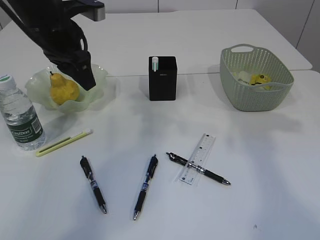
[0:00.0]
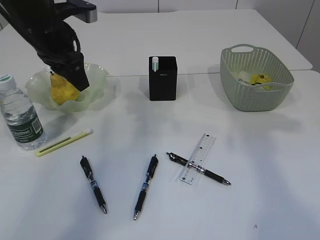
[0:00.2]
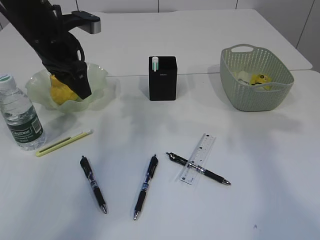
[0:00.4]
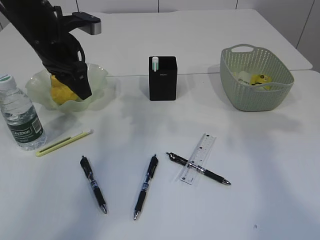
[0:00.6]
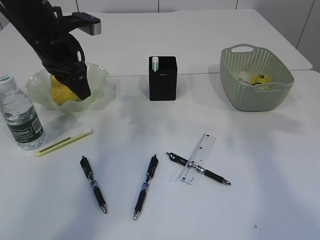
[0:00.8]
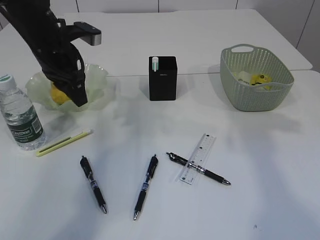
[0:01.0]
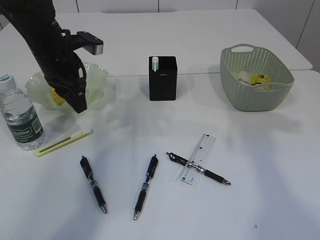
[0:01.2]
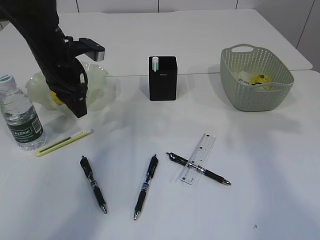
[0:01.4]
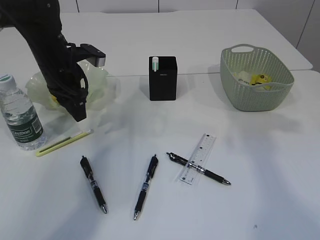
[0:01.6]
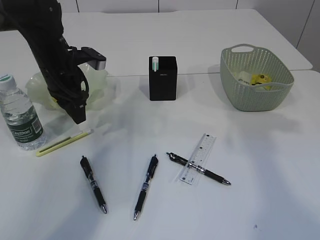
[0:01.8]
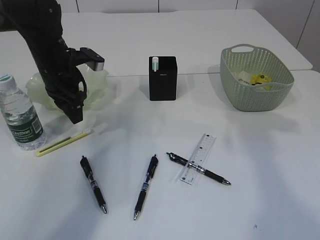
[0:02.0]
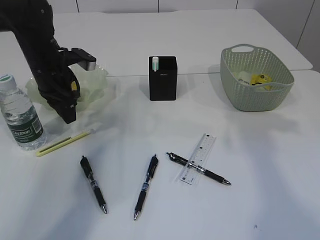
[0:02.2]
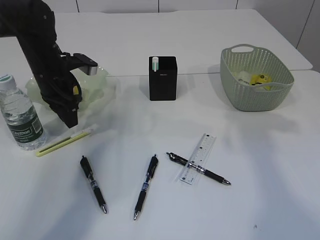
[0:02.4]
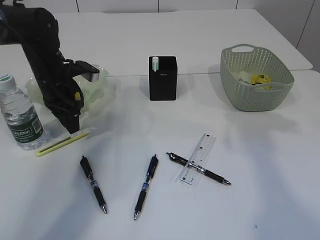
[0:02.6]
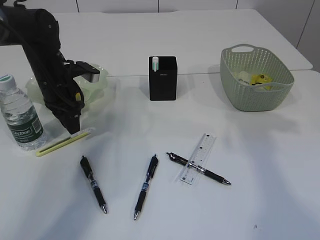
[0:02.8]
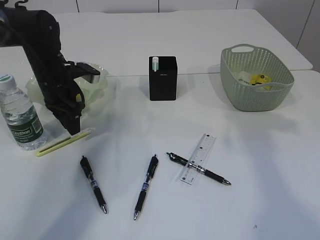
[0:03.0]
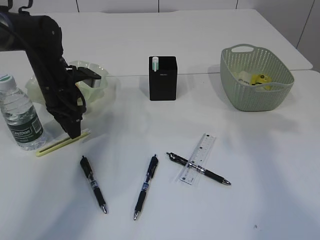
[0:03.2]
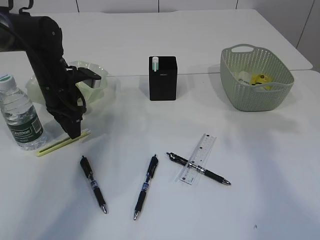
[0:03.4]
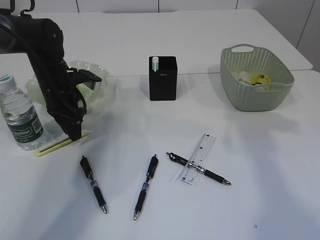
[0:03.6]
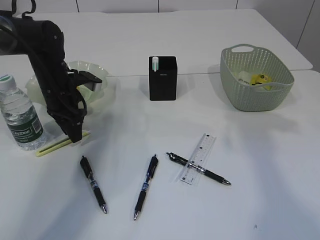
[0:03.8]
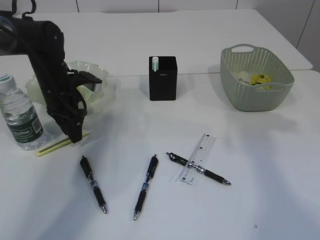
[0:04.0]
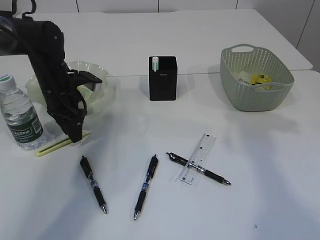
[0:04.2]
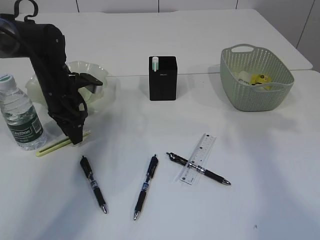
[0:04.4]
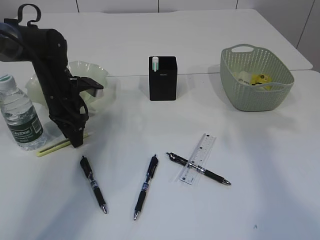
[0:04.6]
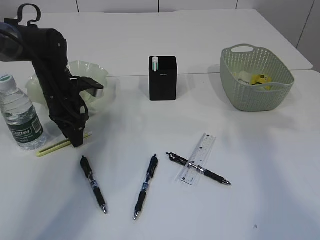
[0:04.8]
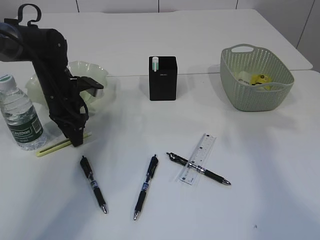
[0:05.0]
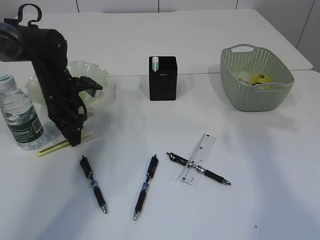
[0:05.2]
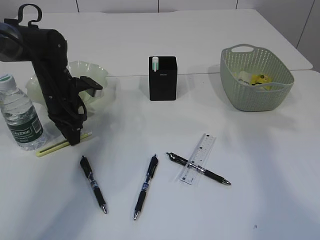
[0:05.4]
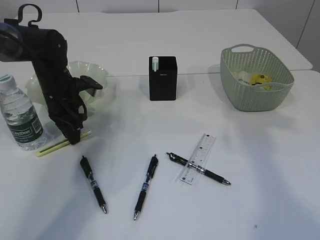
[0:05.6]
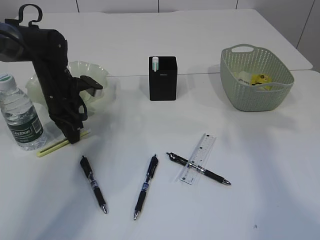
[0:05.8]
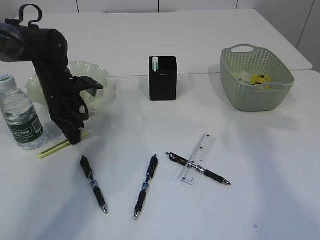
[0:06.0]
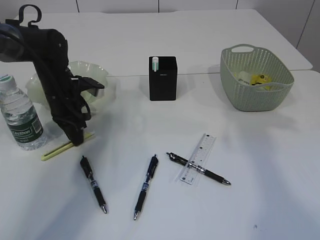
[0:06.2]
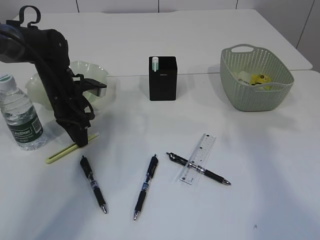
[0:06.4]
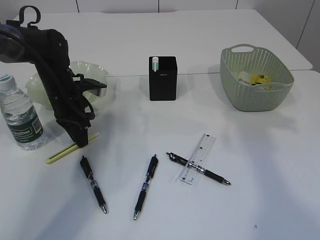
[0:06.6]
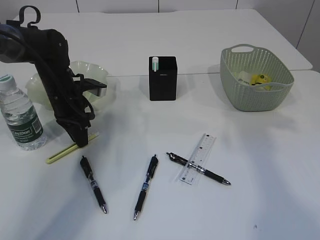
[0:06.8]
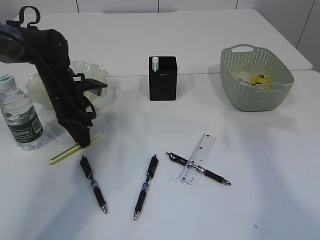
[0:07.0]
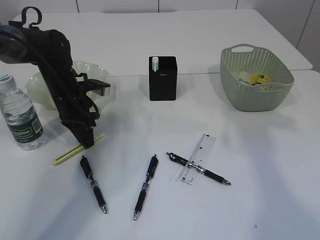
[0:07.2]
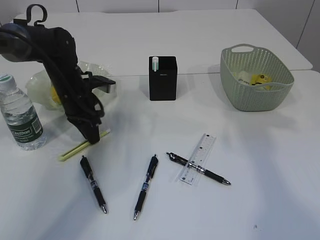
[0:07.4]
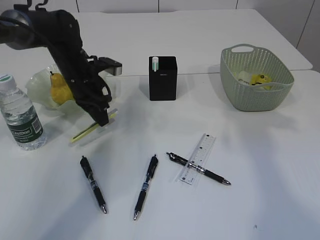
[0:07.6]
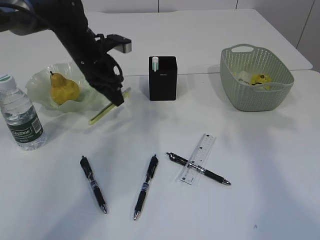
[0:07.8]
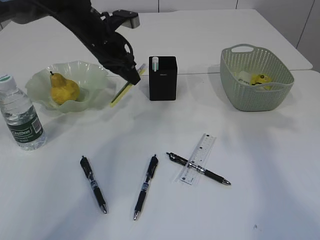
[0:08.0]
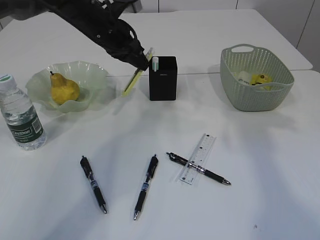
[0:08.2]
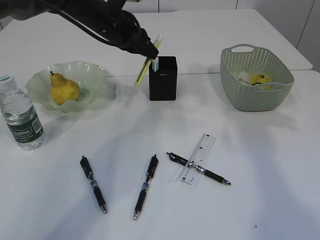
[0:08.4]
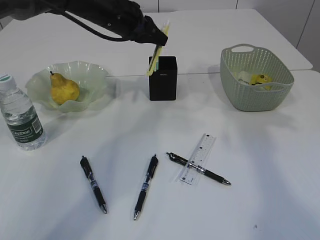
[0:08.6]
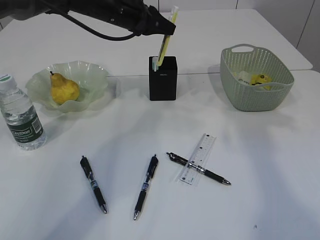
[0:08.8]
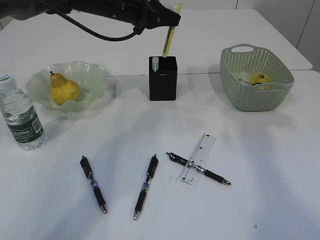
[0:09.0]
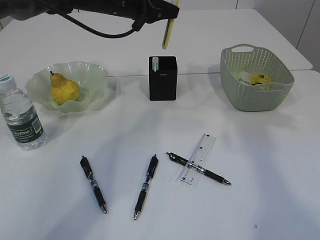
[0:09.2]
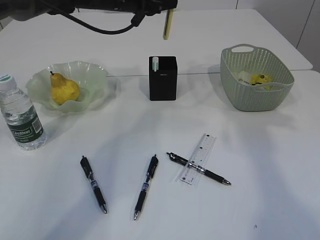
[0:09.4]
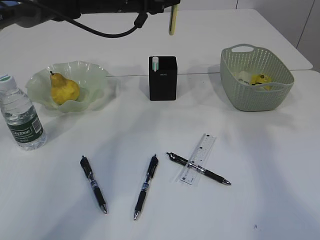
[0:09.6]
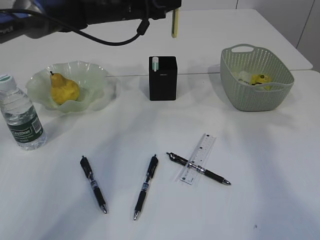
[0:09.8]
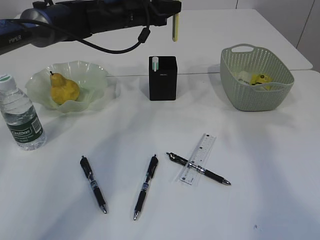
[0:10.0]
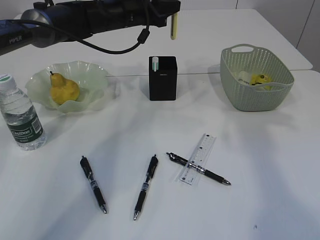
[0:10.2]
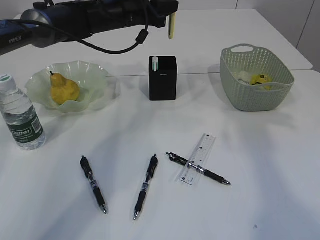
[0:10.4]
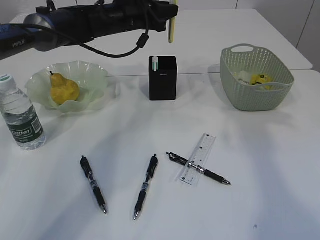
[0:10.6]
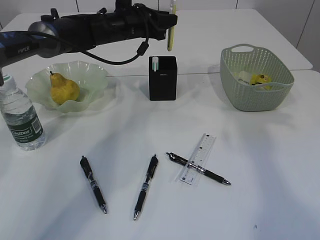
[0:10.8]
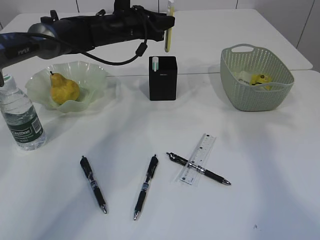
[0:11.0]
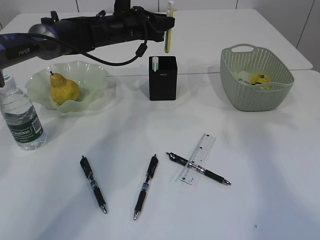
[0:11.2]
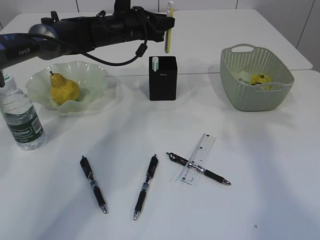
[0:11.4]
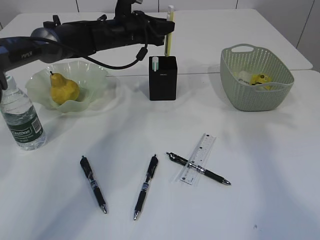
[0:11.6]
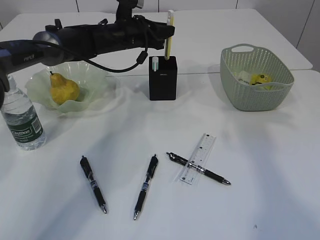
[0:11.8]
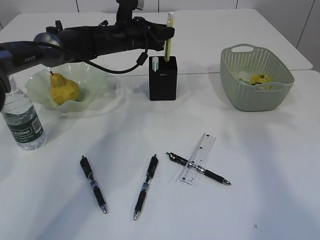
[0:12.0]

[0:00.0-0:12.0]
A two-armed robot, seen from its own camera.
Step, 0:00.0 to 0:08.0: pick up the yellow knife.
0:00.0 to 0:01.6: The left gripper is displaced downward by some 10 cm.
0:01.6 to 0:03.0: There are only small adjustments of the grippers.
0:03.0 to 0:04.4: There are only small adjustments of the grippers.
0:04.4 to 0:06.0: The left gripper closes its fingers.
0:06.0 to 0:07.6: The left gripper changes place by some 5 cm.
0:07.6 to 0:09.0: The left gripper is displaced upward and to the right by approximately 15 cm.
0:10.4 to 0:12.0: The left gripper is displaced downward by approximately 5 cm.

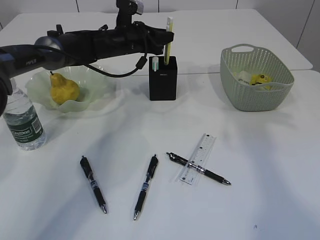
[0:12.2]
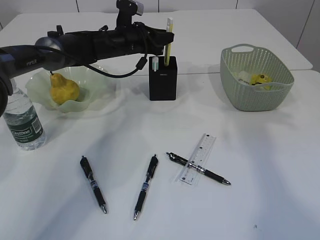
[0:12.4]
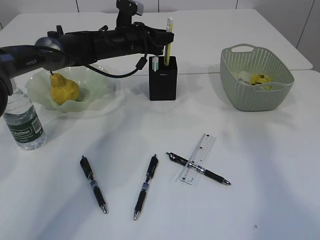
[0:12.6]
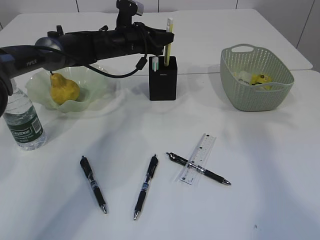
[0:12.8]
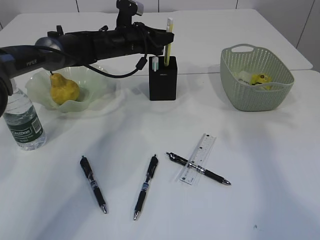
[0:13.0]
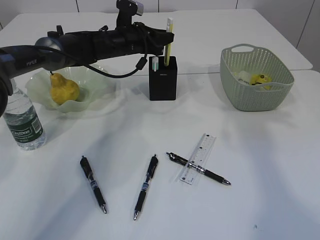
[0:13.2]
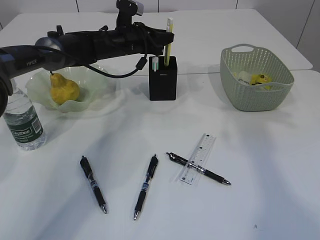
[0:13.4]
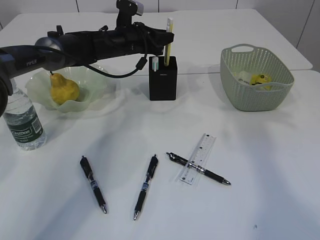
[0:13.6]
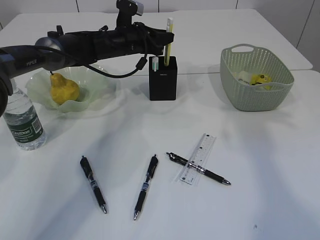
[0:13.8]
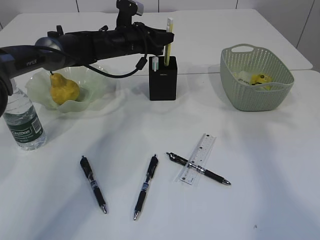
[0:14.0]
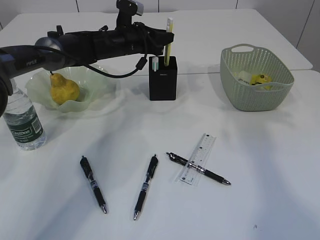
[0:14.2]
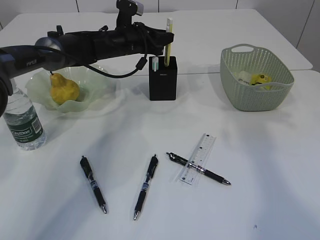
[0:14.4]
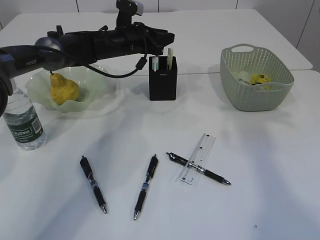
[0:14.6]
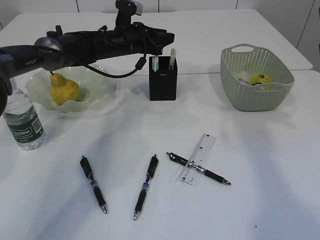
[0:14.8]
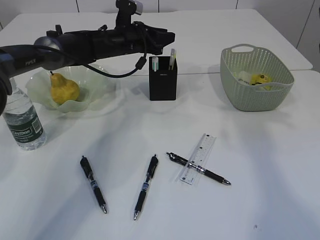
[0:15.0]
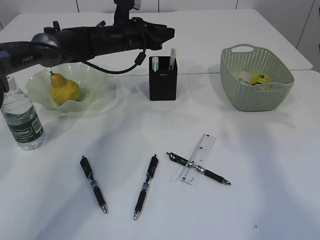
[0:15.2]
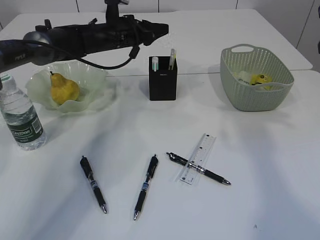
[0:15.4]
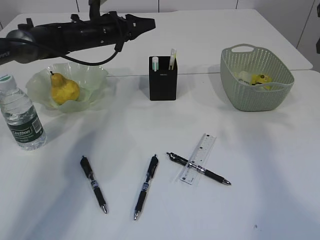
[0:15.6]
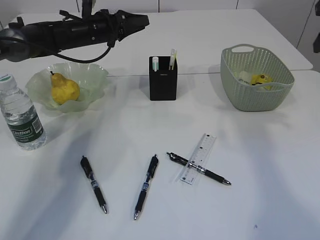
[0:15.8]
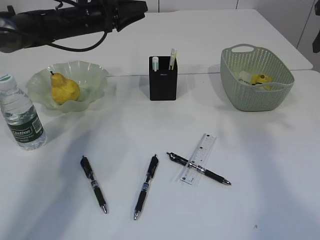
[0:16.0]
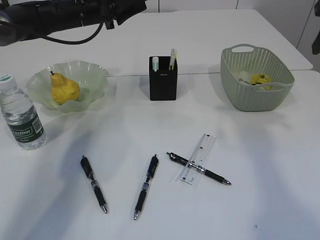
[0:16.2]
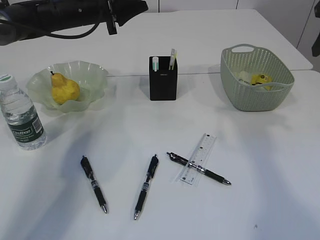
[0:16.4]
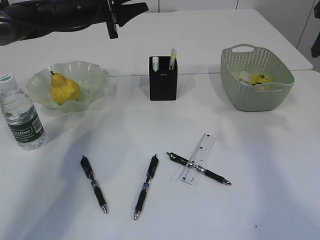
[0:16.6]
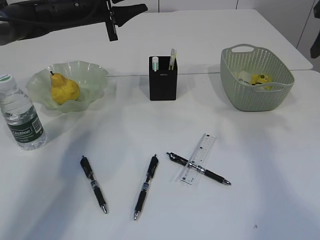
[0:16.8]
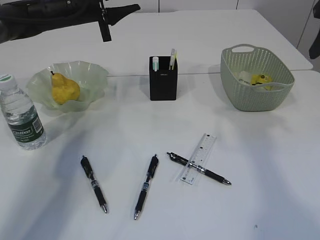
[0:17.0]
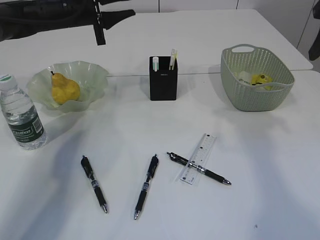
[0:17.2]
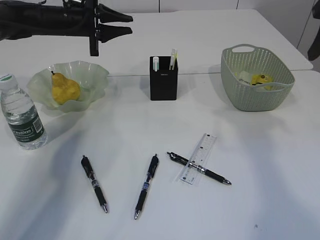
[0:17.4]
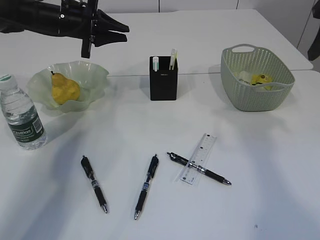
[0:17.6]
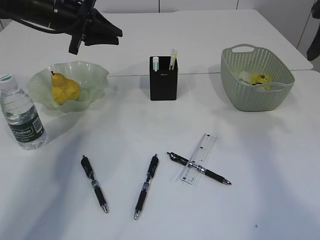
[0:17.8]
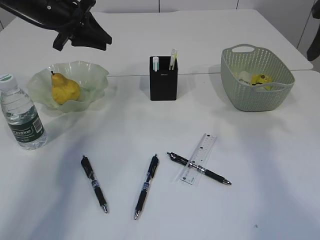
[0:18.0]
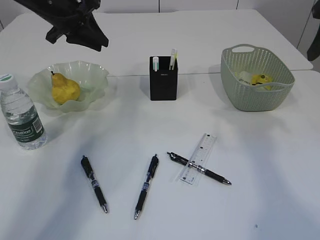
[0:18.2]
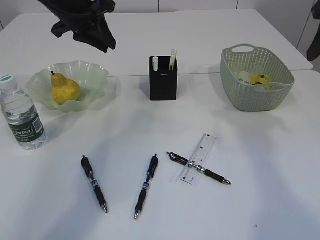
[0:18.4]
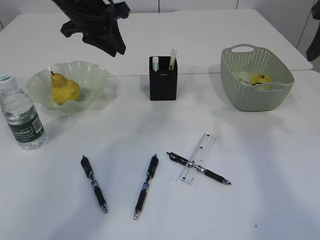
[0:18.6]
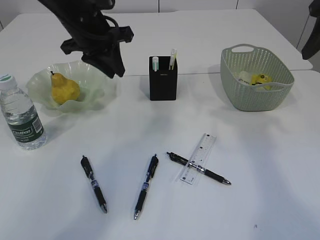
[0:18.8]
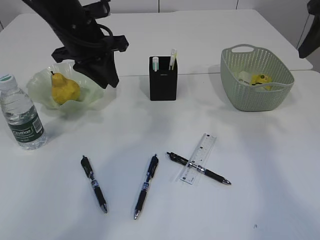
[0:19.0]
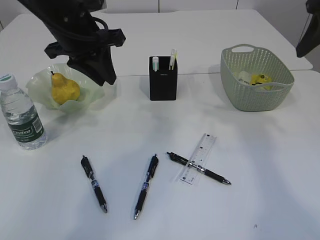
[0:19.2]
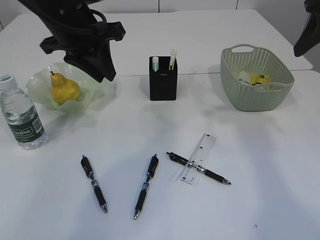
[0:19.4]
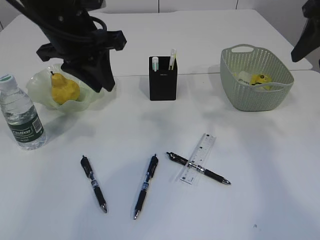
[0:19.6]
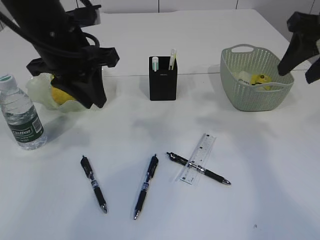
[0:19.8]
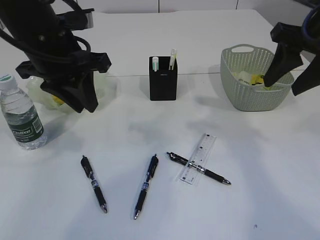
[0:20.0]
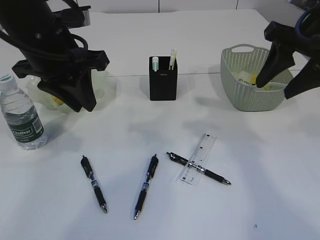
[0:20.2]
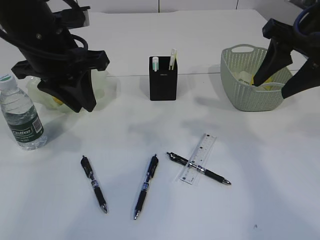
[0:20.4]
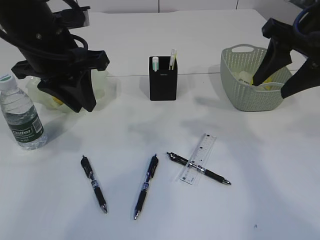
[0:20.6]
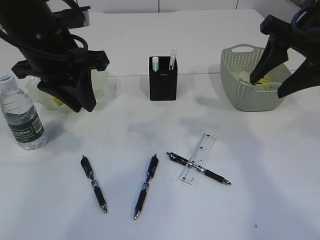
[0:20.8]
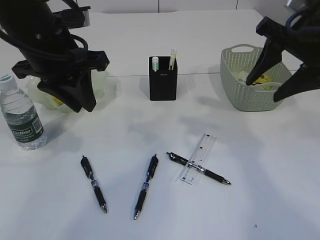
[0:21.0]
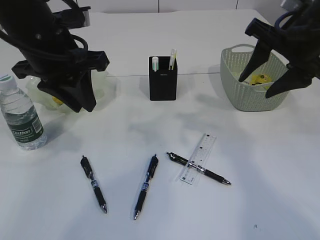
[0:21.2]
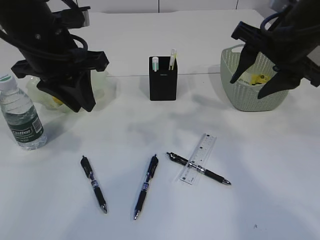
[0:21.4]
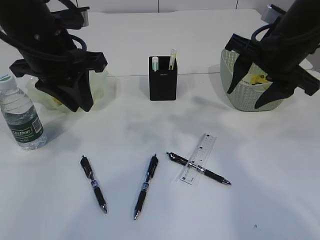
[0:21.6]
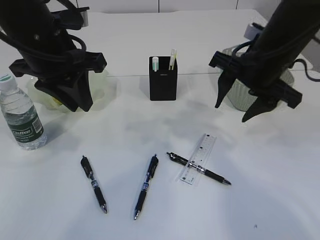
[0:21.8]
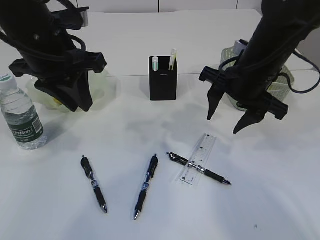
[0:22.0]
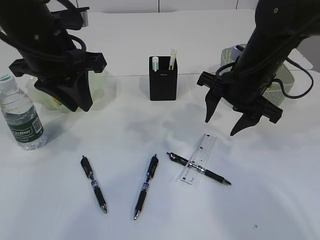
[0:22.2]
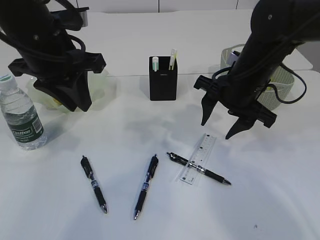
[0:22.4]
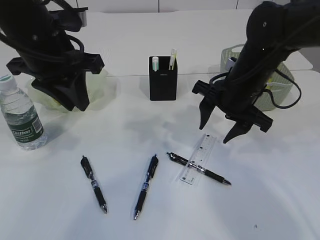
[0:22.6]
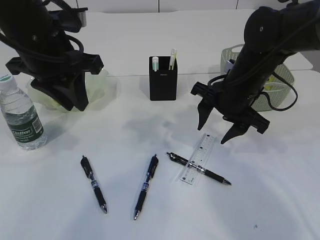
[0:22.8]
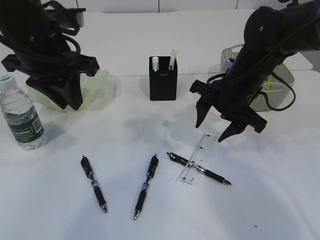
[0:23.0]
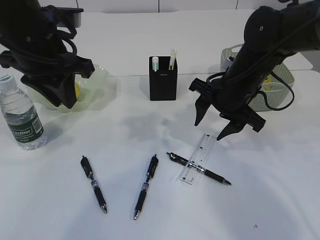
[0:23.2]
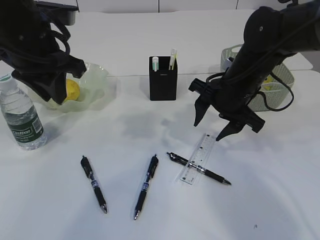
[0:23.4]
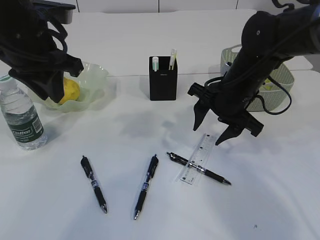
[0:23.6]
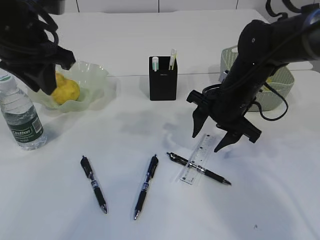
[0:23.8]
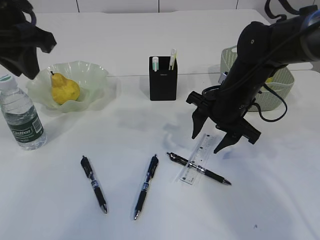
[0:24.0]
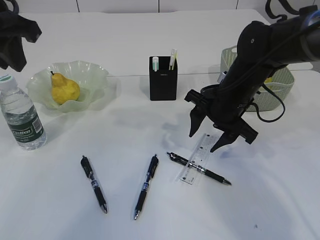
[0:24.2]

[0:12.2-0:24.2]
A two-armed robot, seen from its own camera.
Step, 0:12.2 to 0:15.8: place the yellow knife into the pen holder.
0:12.2 to 0:15.2: Both grippers stay about where they are.
0:15.2 to 0:16.6: The left gripper goes about 10 cm to the left and upward.
0:16.6 to 0:18.2: The left gripper changes place by some 5 cm.
0:18.2 to 0:19.8: The left gripper shifts about 15 cm backward and to the right.
0:19.8 to 0:21.2: The right gripper changes place by approximately 5 cm.
0:21.2 to 0:22.6: The right gripper shifts roughly 15 cm downward and to the left.
0:22.6 to 0:24.2: The left gripper goes about 10 cm to the left and upward.
